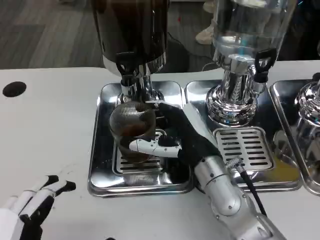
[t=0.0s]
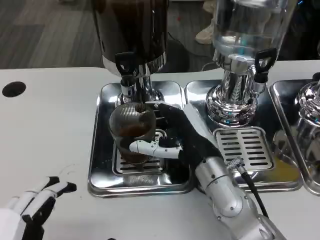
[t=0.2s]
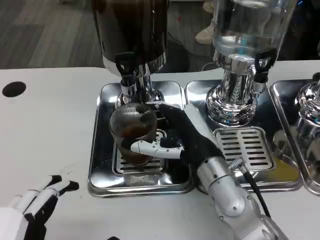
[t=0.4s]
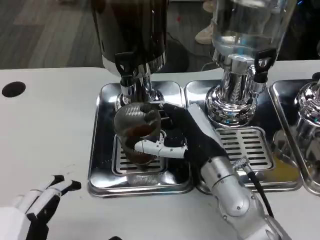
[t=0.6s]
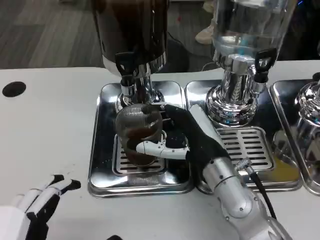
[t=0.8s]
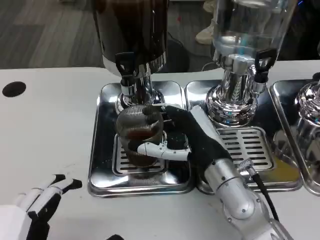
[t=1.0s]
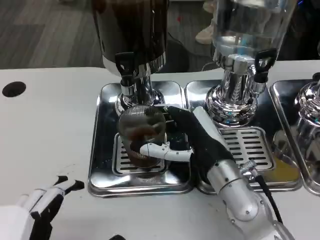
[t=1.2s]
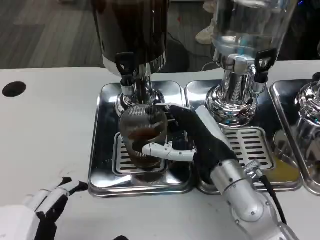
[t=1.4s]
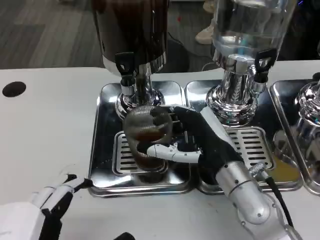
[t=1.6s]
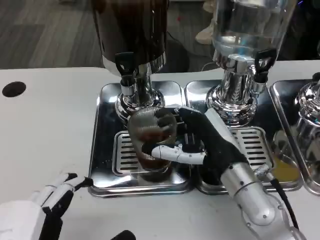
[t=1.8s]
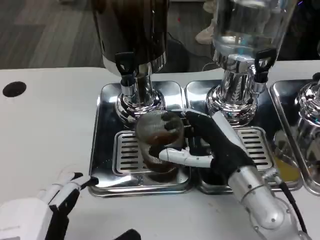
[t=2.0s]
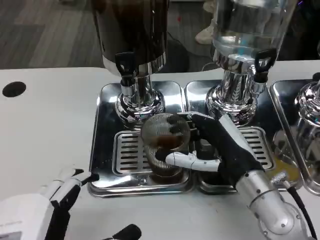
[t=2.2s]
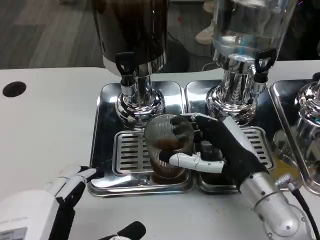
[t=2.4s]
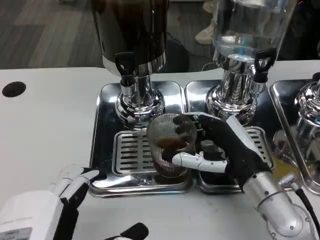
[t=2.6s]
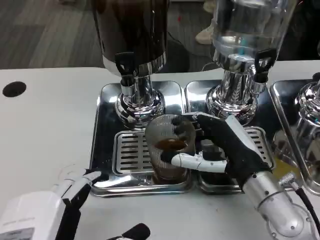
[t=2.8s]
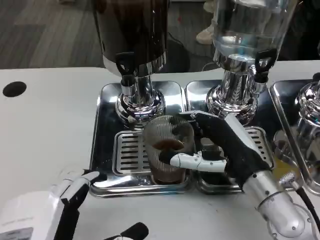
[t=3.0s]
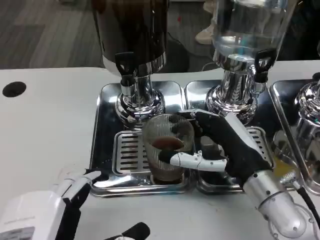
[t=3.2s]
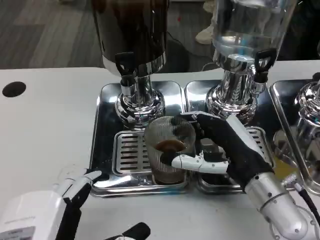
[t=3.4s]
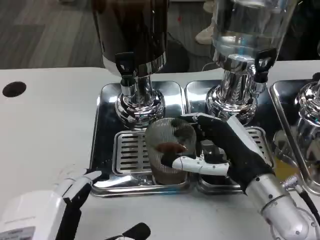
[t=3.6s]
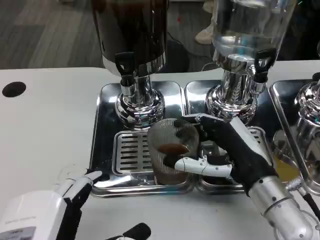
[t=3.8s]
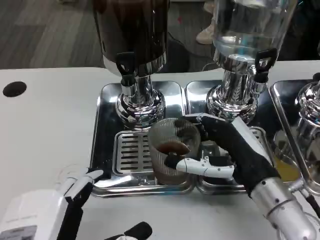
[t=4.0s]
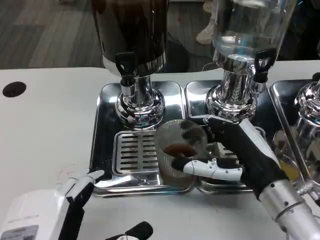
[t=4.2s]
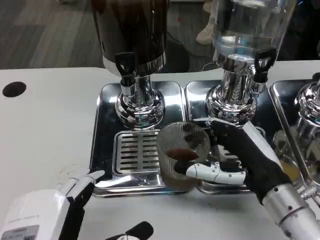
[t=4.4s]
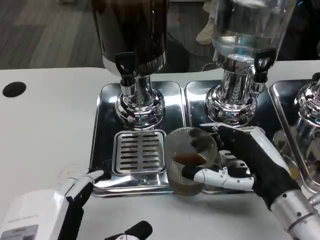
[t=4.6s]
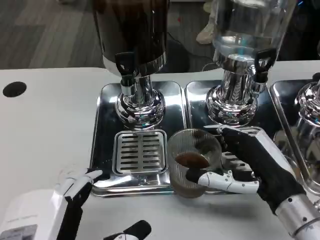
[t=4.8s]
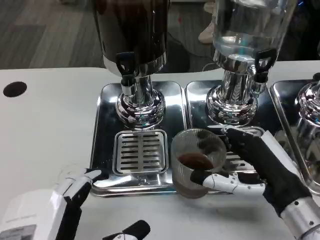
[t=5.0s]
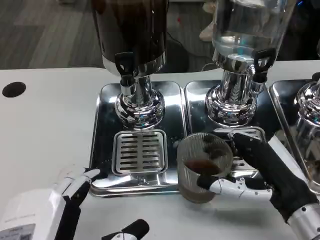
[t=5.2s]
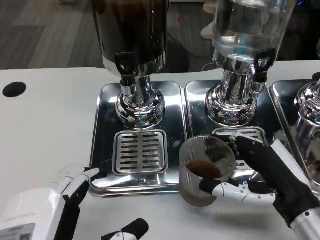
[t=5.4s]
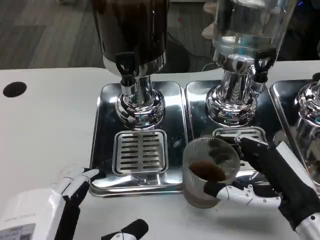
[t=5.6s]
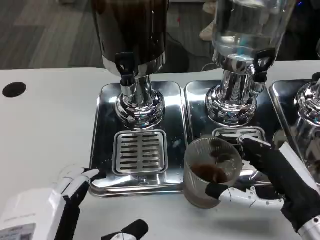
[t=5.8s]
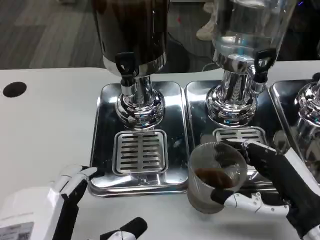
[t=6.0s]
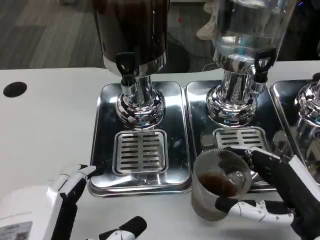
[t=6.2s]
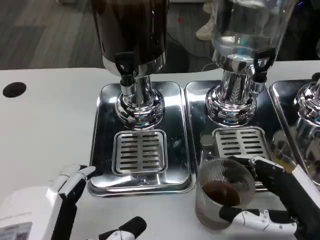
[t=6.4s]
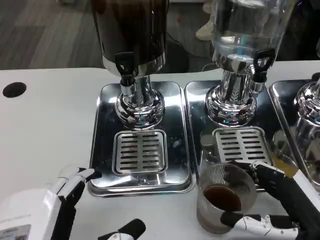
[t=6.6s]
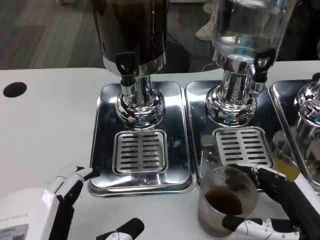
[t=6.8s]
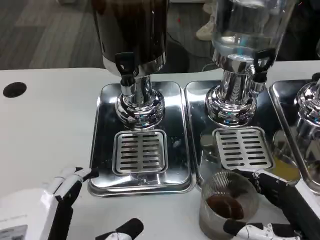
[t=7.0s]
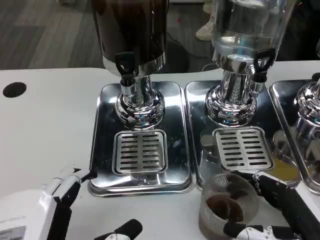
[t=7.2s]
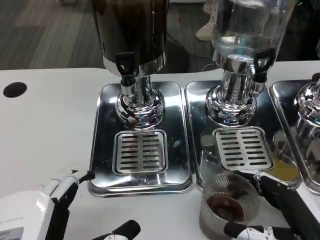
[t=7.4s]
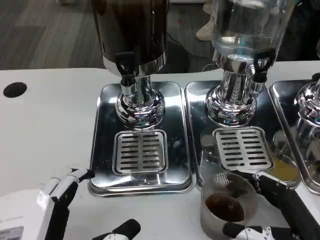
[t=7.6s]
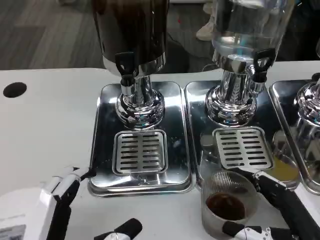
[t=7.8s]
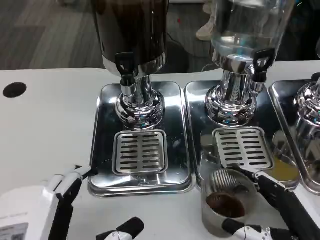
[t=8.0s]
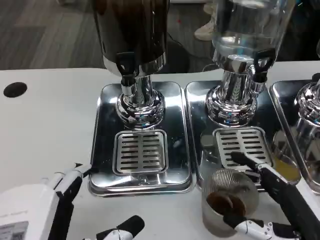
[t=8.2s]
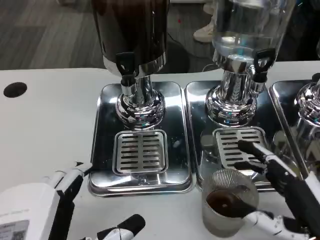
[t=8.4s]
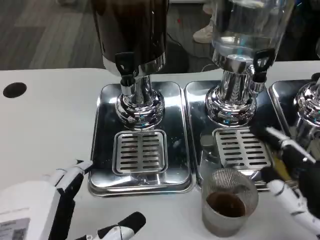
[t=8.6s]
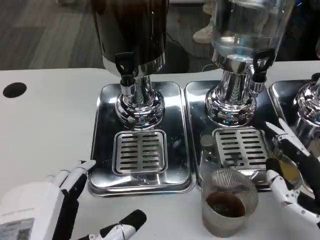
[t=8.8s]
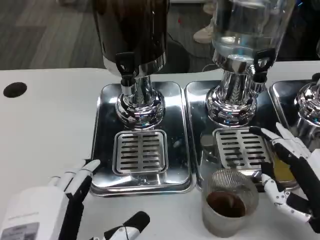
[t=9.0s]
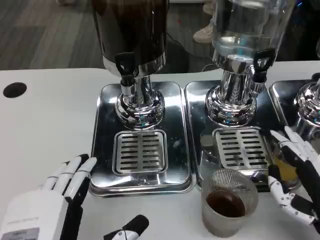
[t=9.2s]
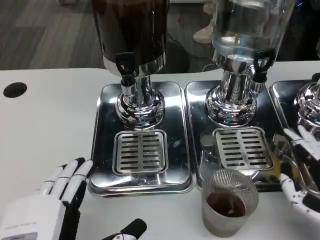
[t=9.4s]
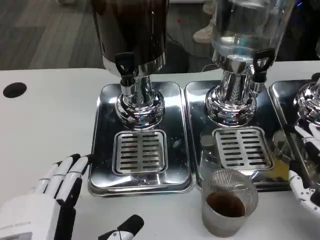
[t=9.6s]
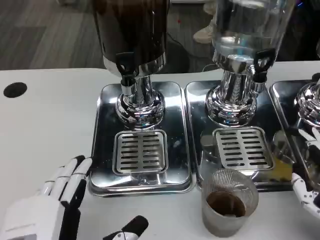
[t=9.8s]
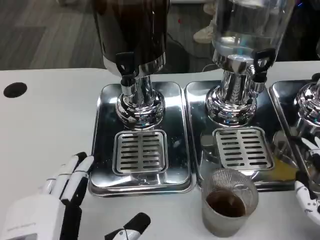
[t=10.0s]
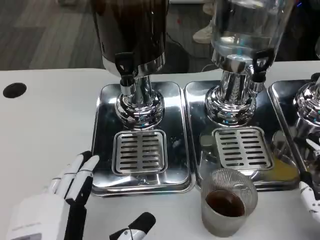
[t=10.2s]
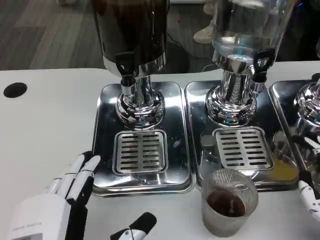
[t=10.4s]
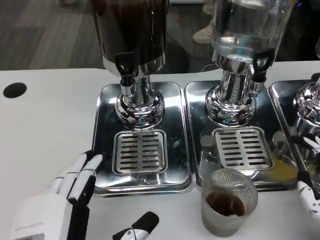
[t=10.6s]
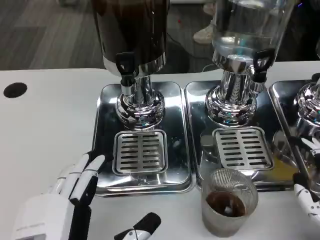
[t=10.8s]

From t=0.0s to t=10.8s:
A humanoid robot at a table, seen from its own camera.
Task of the whole recording: Grasp the cup under the faucet to collect the drink, then remove the cup.
From t=0.0s to t=1.6s: The hands stay close to where they were, moving slightly.
From t=1.6s to t=3.0s: The hands make only small movements.
From t=3.0s to t=4.6s: The hands make only small movements.
From t=4.6s to t=6.2s: The right hand shifts by approximately 5 cm.
From t=6.2s to t=7.8s: The hands stay close to where they were, moving slightly.
From t=9.2s to t=10.8s: The hands move only a little.

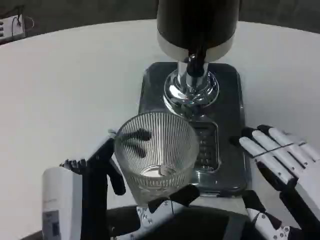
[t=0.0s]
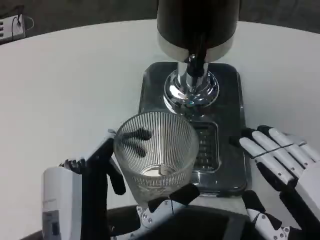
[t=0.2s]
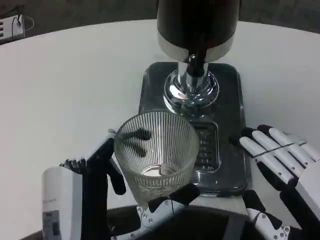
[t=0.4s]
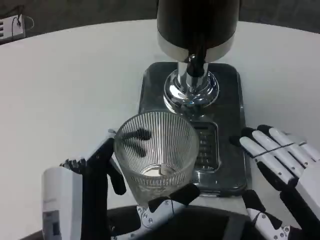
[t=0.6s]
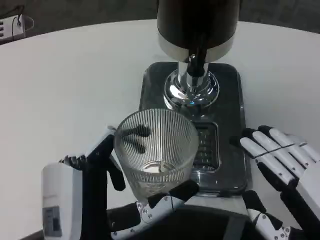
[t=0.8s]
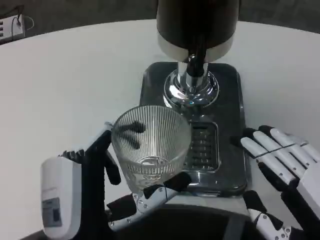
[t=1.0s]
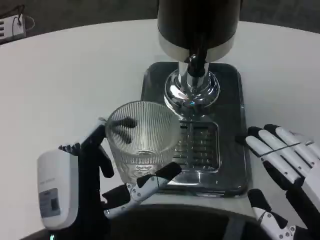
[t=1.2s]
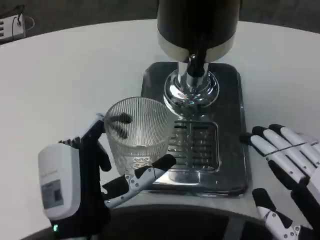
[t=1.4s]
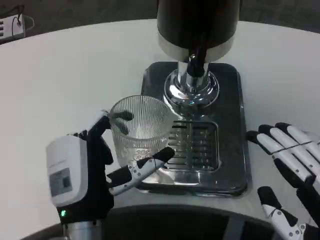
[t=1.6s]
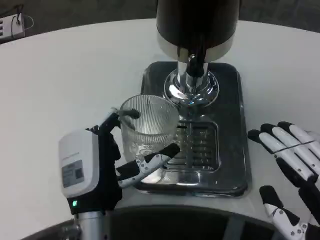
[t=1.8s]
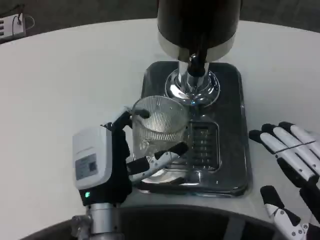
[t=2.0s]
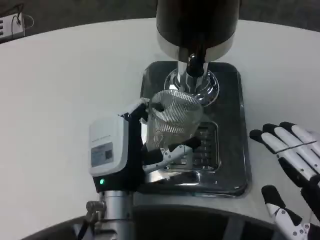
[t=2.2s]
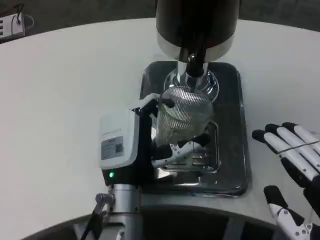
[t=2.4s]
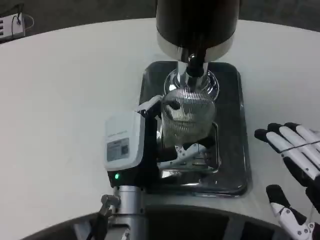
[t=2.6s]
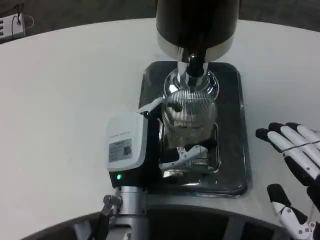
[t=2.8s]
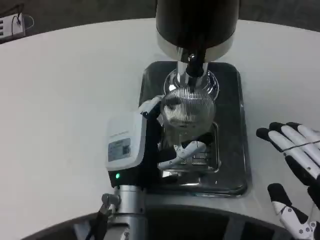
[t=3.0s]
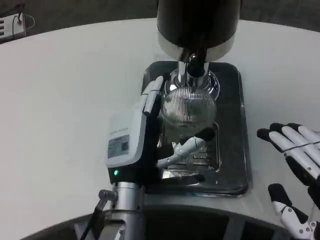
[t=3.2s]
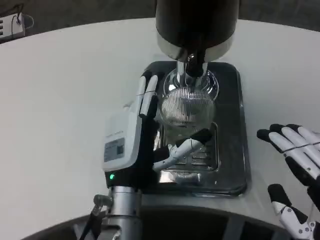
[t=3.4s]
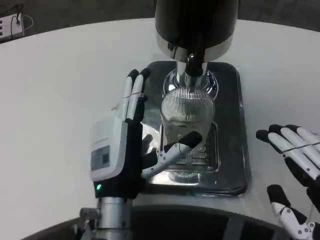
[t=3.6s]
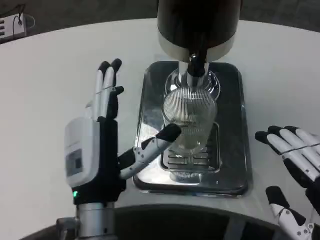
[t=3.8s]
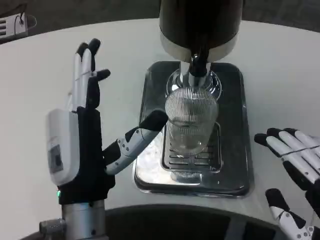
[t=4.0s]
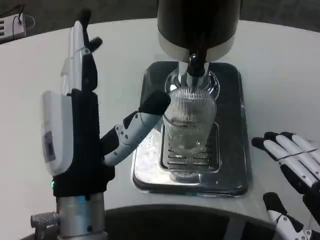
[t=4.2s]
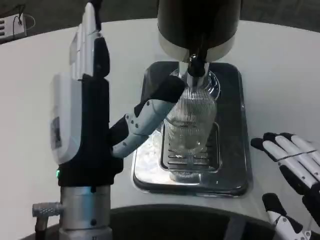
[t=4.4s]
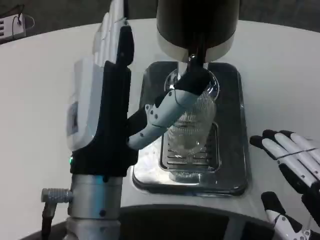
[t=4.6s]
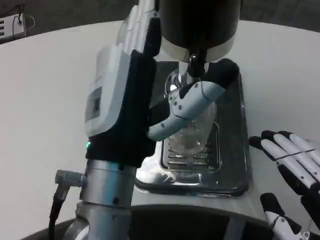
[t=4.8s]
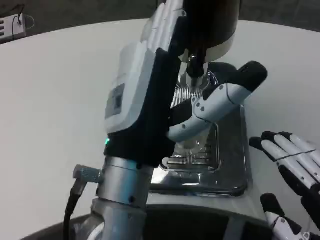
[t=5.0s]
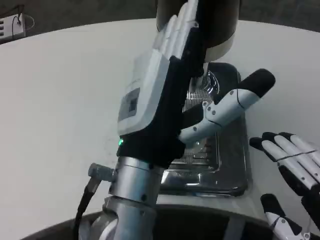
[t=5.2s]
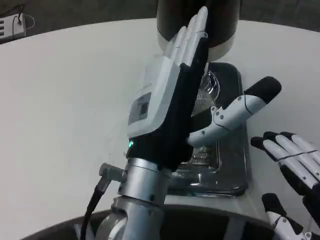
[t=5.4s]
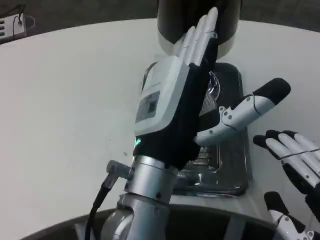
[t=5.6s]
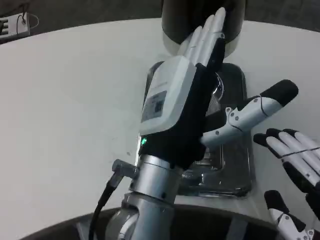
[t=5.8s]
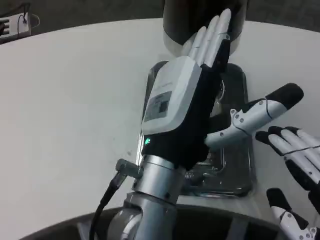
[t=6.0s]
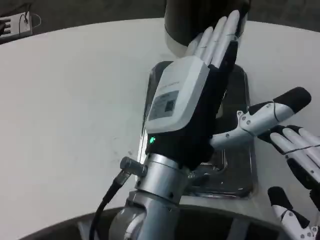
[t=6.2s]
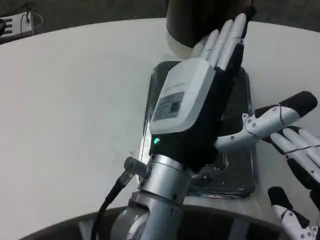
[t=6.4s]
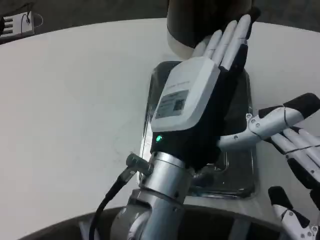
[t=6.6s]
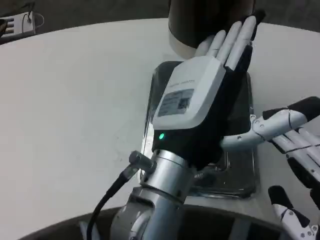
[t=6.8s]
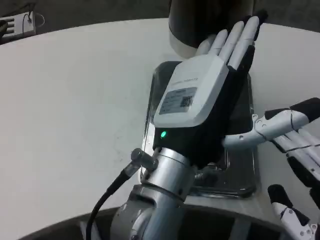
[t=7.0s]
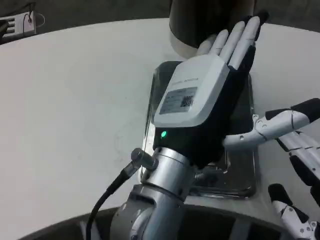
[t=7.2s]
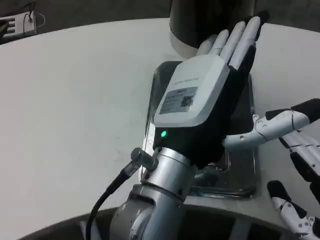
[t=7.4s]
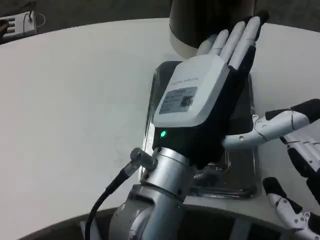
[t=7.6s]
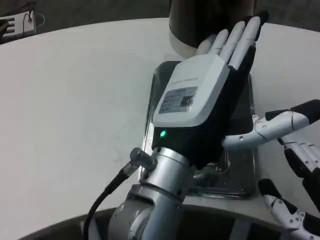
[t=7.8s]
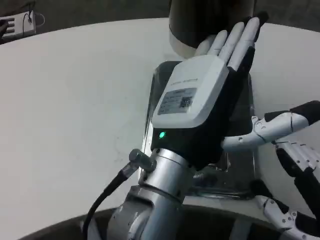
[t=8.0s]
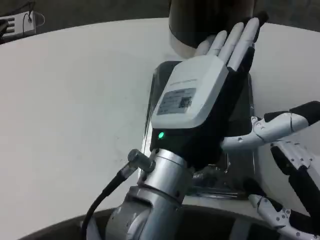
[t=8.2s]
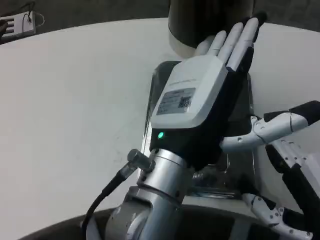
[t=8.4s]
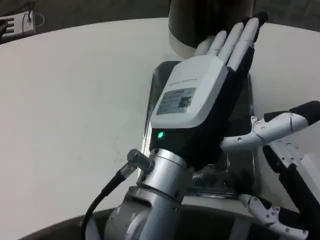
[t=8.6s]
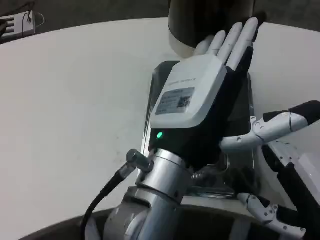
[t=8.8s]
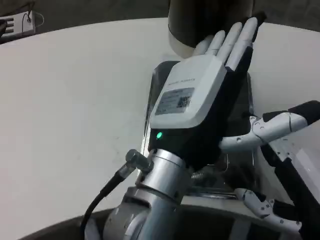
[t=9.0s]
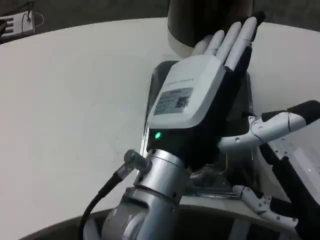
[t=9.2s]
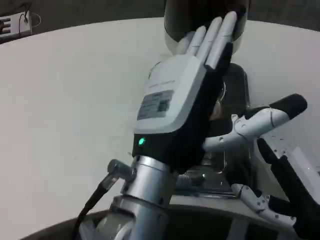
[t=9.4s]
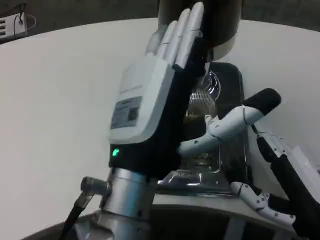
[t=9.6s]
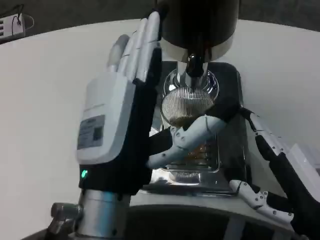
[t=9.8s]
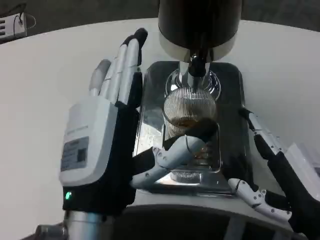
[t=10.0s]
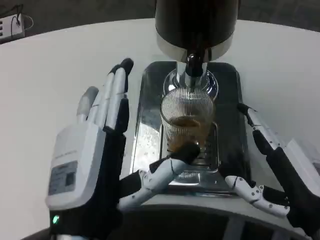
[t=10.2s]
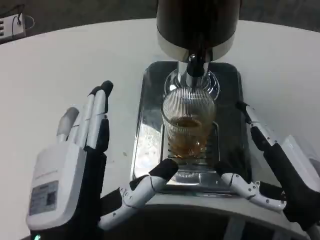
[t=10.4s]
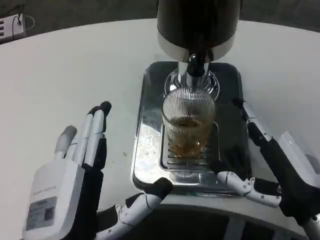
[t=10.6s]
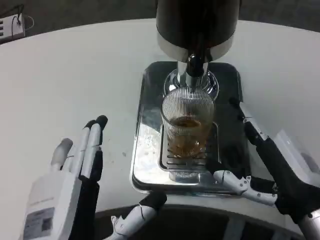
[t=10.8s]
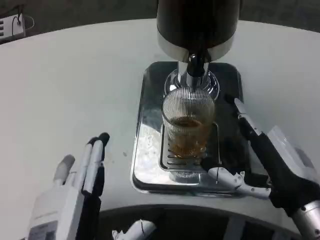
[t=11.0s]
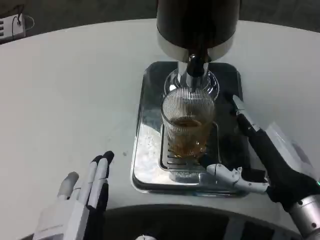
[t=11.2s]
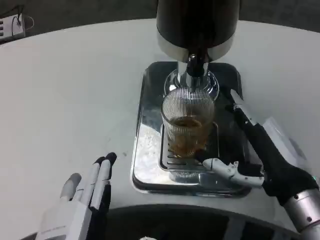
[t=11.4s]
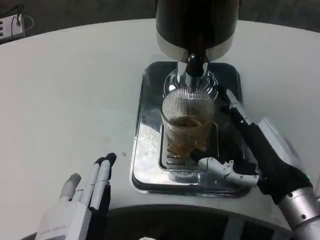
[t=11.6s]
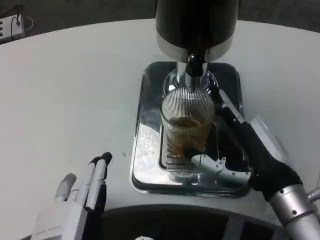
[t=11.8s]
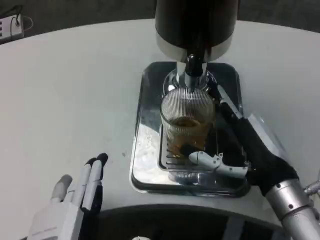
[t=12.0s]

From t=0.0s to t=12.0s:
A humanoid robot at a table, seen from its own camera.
Task of the whole recording: Grasp the cup under the faucet to collect the drink, then remove the cup.
From t=0.0s to t=1.6s: The left hand goes about 10 cm forward.
From t=1.6s to t=3.0s: The left hand is displaced forward by about 5 cm.
From t=3.0s to t=4.4s: The left hand goes roughly 15 cm backward and upward.
From t=4.4s to t=6.0s: The left hand heads to the right, covering about 5 cm.
From t=7.6s to t=9.0s: The hands make only small movements.
From t=9.0s to t=10.4s: The left hand is displaced to the left, downward and backward by roughly 15 cm.
From t=10.4s to t=12.0s: The right hand goes some 5 cm forward. Meanwhile the left hand shifts by about 5 cm.
